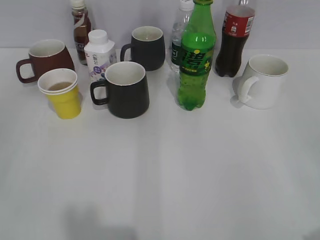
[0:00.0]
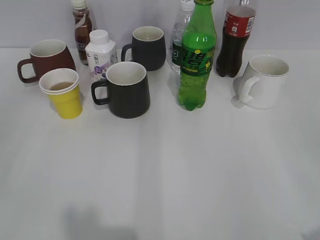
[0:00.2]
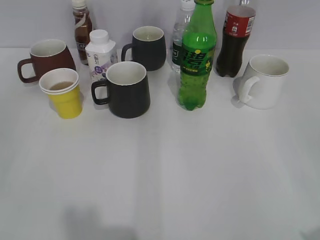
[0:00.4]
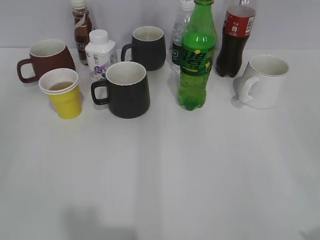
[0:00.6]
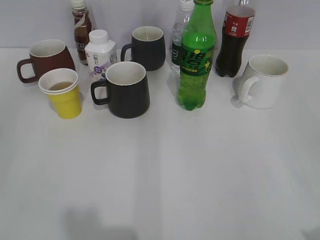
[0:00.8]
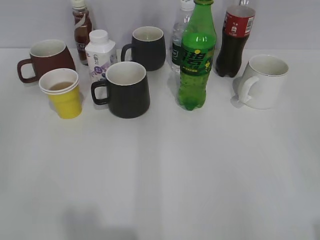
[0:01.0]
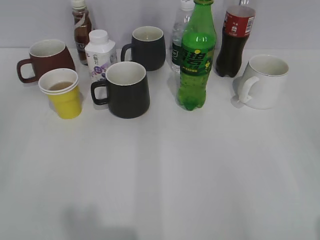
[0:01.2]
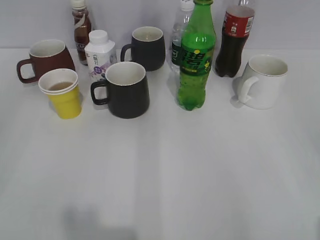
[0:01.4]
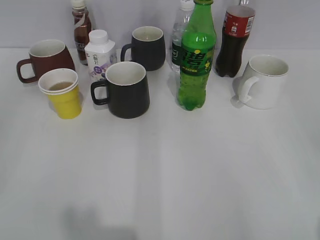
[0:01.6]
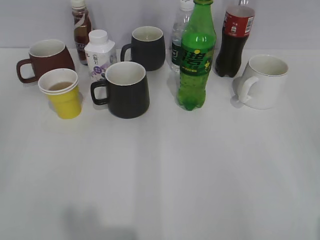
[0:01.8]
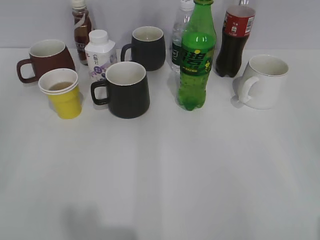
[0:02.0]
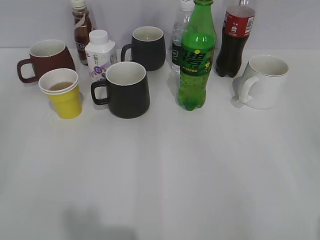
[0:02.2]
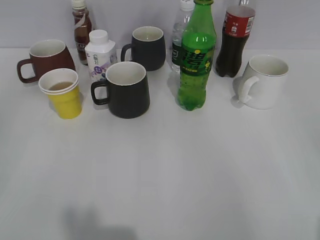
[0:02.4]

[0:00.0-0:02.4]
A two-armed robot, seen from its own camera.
1.2 to 2.4 s: Neither gripper changes place.

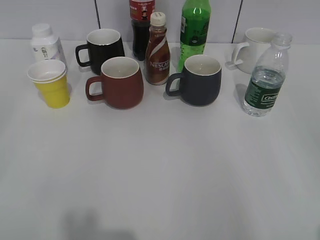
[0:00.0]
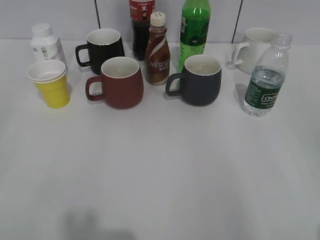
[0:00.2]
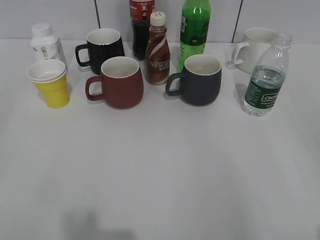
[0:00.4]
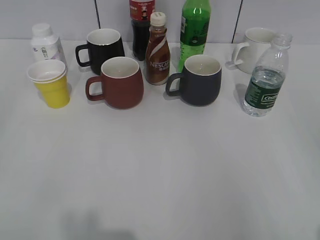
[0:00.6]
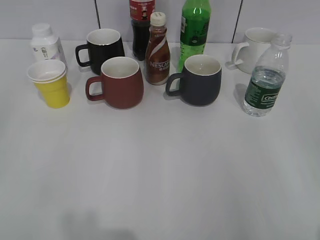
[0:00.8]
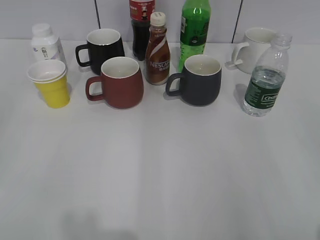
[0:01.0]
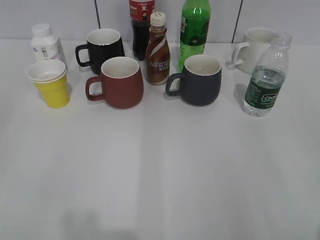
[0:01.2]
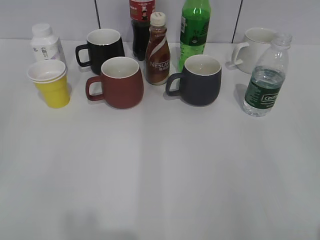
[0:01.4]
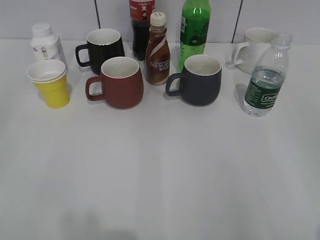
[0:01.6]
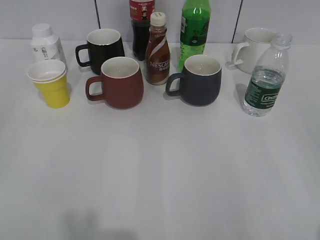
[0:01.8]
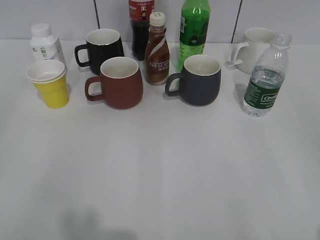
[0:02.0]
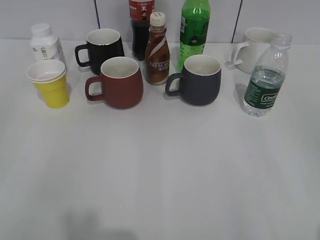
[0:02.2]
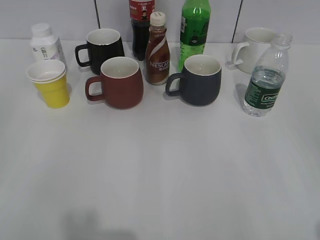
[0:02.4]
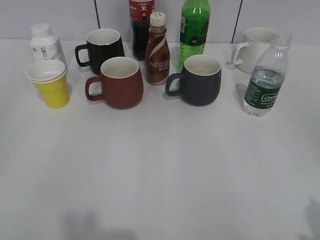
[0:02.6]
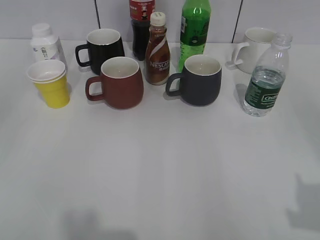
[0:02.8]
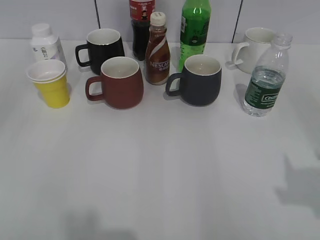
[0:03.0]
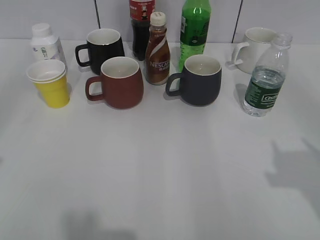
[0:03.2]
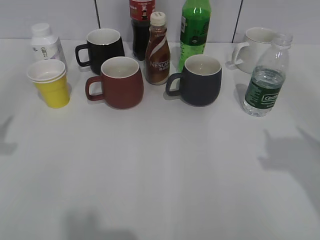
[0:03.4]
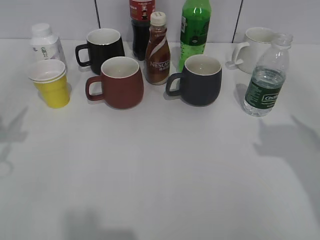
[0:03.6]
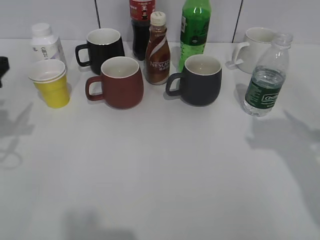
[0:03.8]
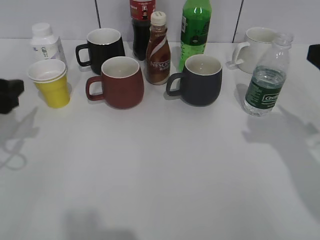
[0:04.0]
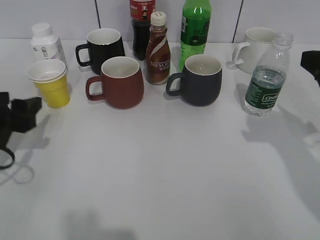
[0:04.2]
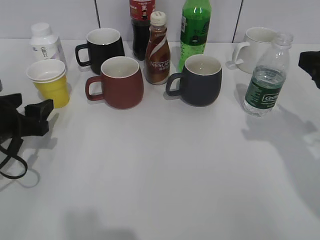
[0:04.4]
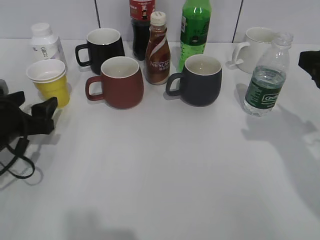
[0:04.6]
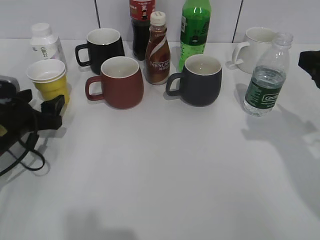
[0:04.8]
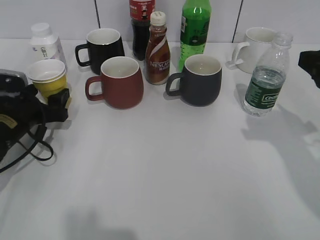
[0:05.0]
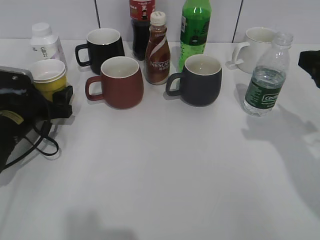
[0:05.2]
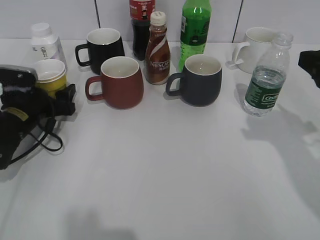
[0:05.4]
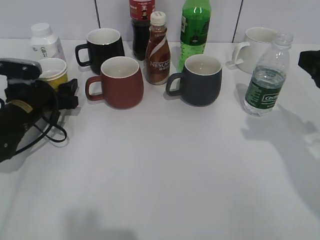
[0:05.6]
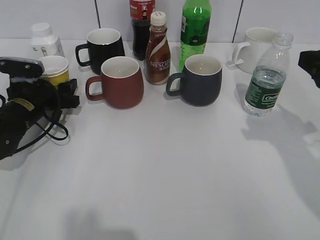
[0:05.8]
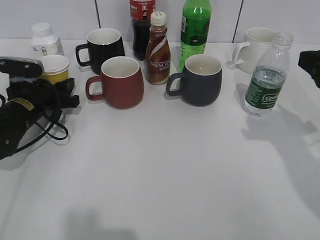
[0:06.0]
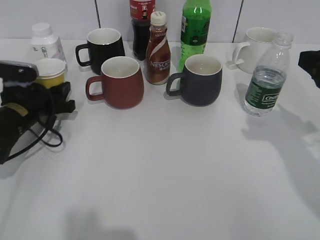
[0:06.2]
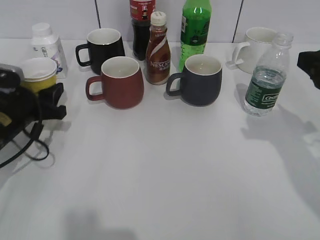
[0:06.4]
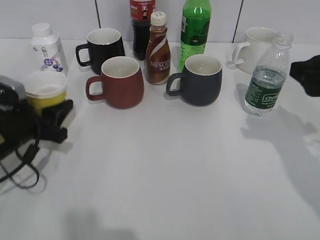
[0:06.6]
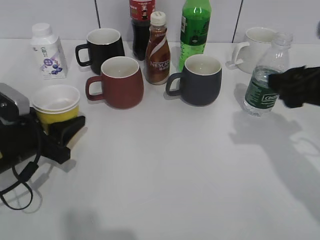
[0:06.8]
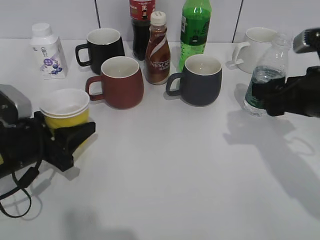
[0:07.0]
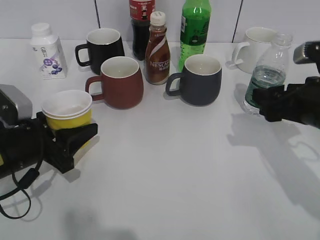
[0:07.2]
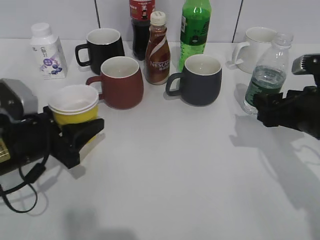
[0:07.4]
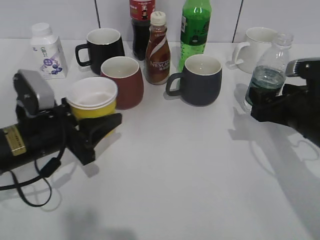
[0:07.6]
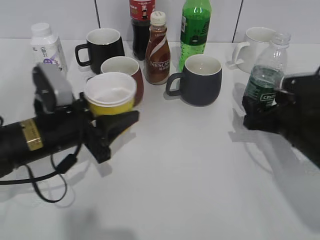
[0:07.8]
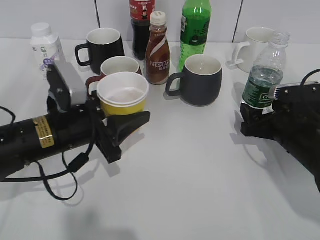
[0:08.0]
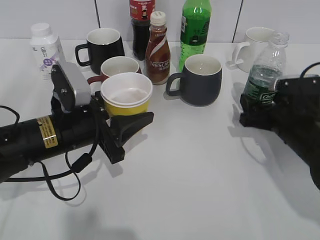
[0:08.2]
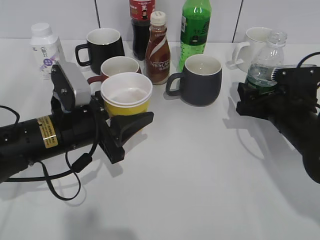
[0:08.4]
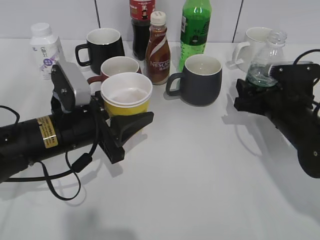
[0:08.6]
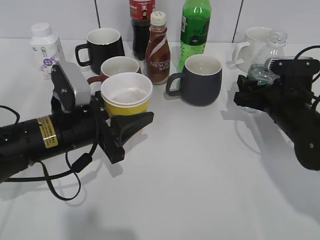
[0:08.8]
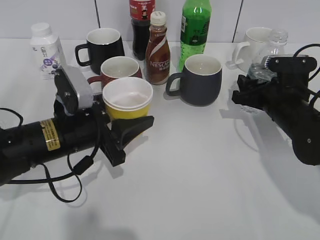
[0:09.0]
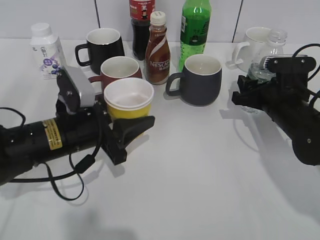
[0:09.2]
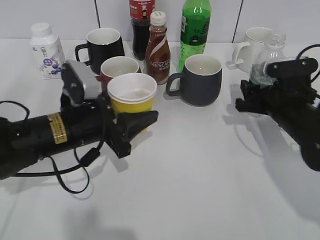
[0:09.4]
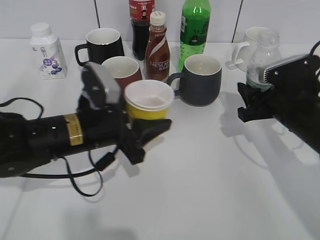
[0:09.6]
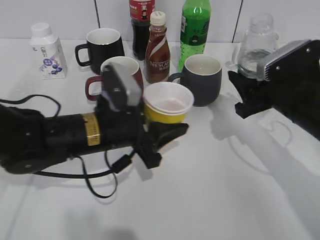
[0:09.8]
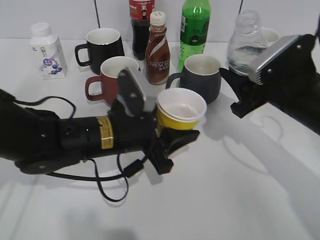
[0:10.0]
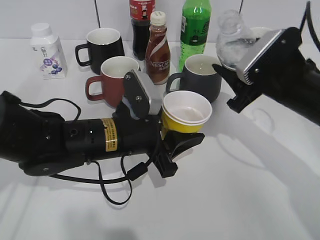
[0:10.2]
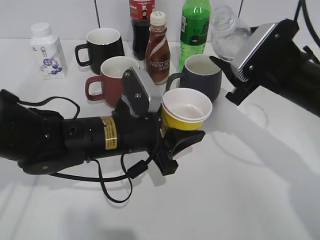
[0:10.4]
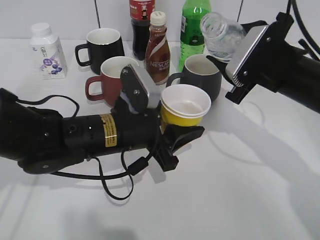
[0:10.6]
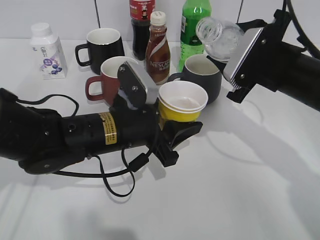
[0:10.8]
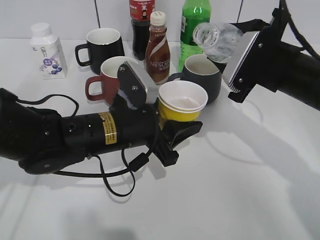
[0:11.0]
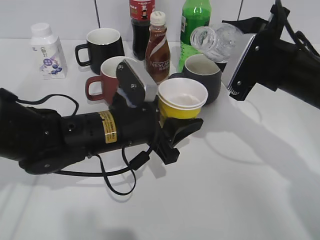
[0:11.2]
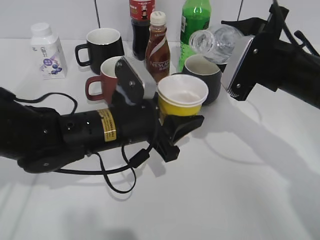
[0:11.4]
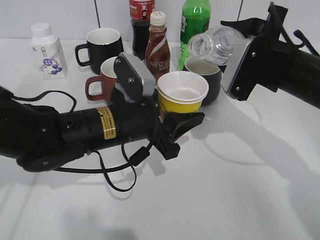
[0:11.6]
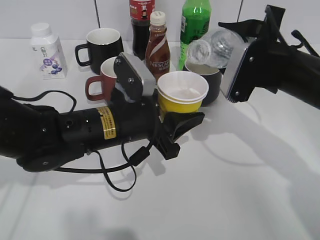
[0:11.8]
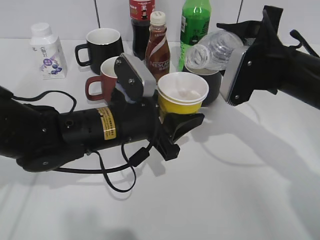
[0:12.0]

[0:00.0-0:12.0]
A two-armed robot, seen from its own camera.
Step, 2.2 to 5.8 s: Grasp the yellow paper cup with left gripper.
Step, 6.2 to 9.0 s: Grasp the bottle with water with right gripper.
1.6 to 3.0 s: The right gripper goes about 5 cm forward, and closes.
3.0 to 4.4 s: The left gripper heads forward and downward, covering some 25 cm, and opens. Meanwhile the right gripper moves forward, some 15 cm, and opens up.
4.4 to 6.0 s: The left gripper shifts approximately 10 cm forward, and closes up.
6.0 to 7.6 s: The left gripper goes some 10 cm backward and to the right; the right gripper is displaced downward by some 10 cm.
7.6 to 9.0 s: The left gripper goes about 5 cm to the right, while the right gripper shifts approximately 5 cm forward, and closes up.
9.0 to 10.4 s: The right gripper travels upward by some 10 cm; the left gripper is displaced to the right by roughly 10 cm.

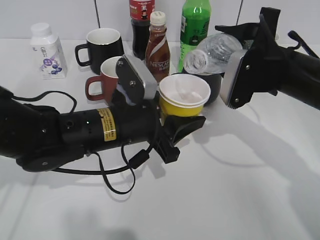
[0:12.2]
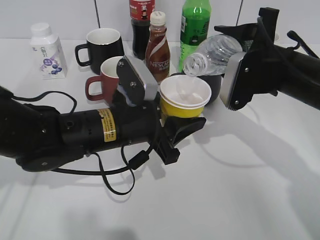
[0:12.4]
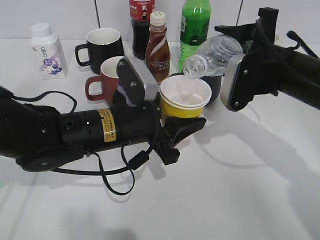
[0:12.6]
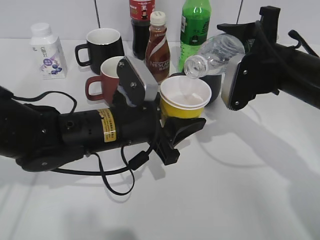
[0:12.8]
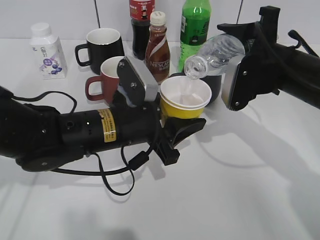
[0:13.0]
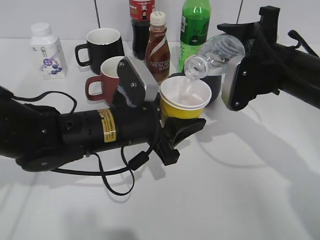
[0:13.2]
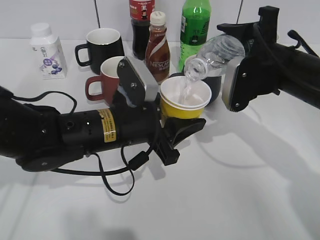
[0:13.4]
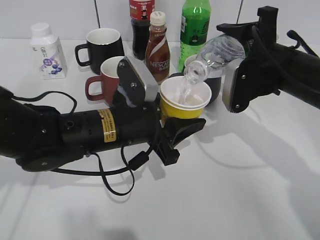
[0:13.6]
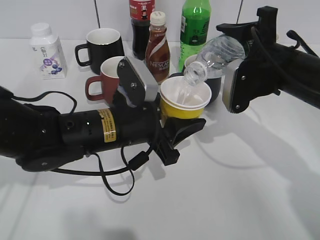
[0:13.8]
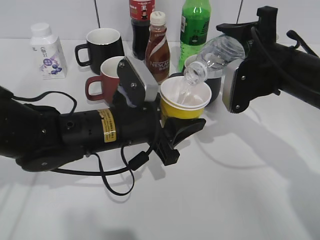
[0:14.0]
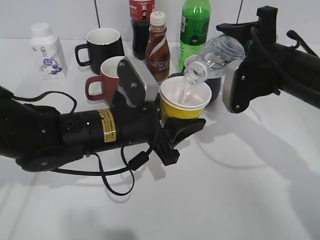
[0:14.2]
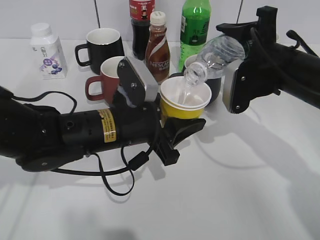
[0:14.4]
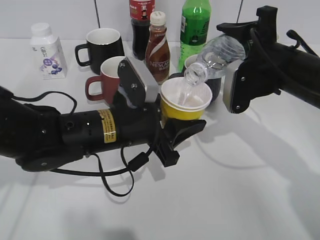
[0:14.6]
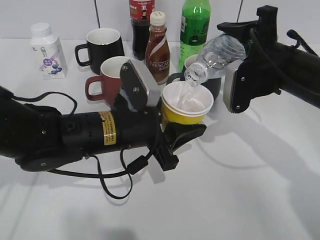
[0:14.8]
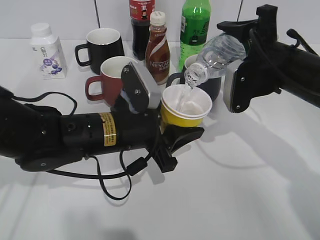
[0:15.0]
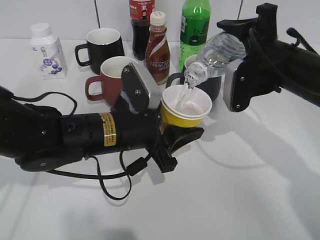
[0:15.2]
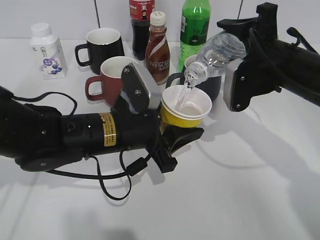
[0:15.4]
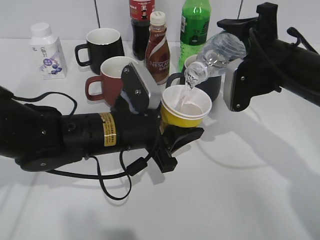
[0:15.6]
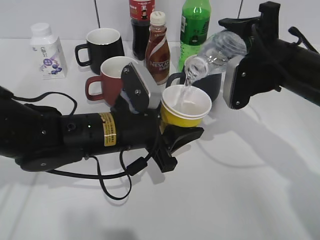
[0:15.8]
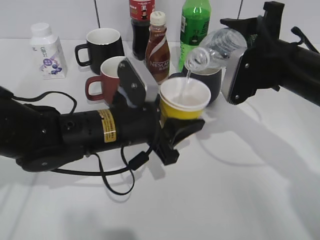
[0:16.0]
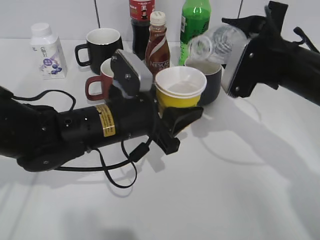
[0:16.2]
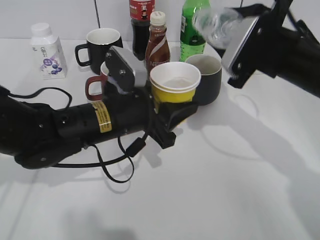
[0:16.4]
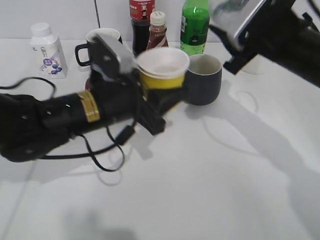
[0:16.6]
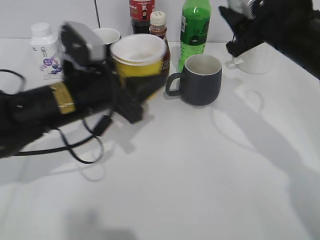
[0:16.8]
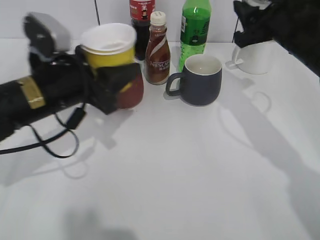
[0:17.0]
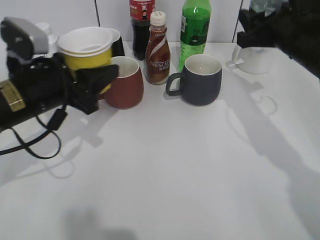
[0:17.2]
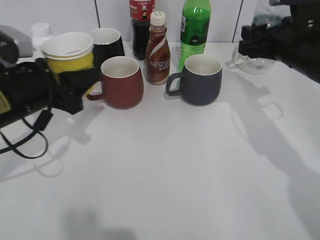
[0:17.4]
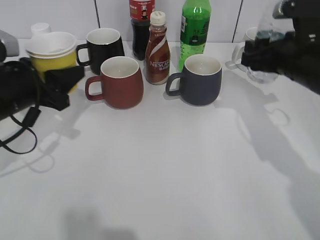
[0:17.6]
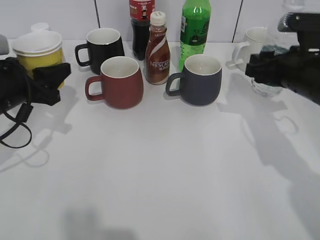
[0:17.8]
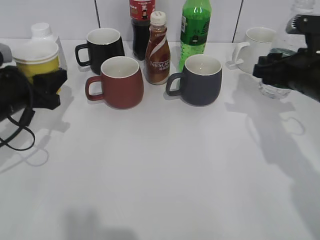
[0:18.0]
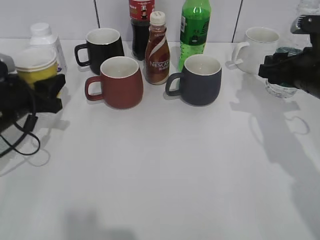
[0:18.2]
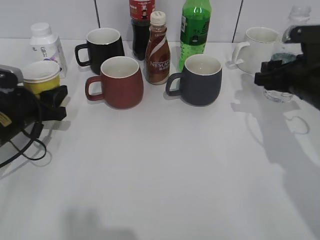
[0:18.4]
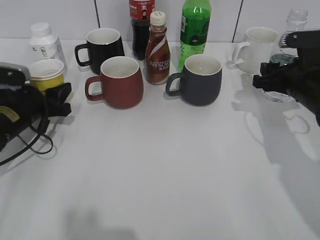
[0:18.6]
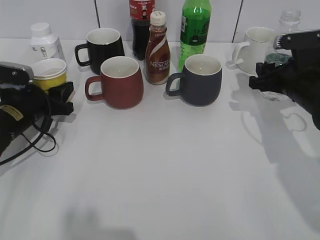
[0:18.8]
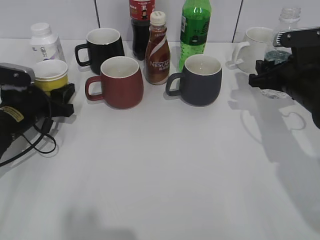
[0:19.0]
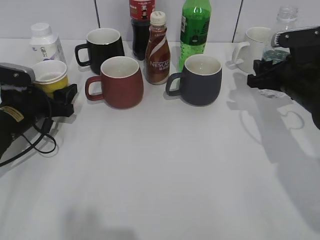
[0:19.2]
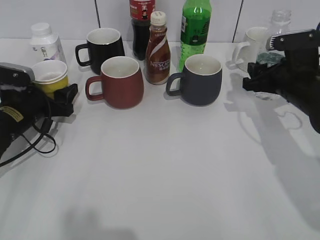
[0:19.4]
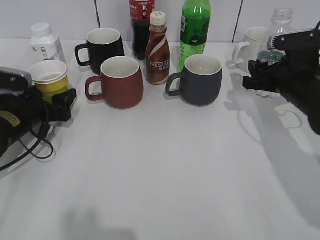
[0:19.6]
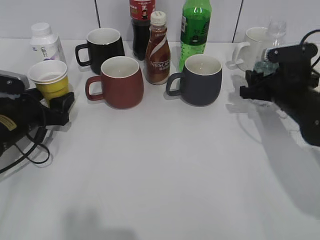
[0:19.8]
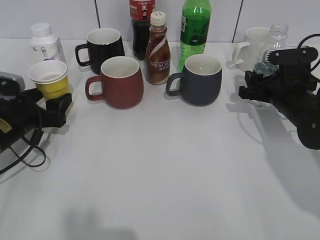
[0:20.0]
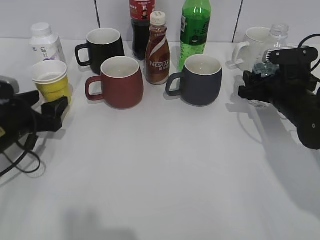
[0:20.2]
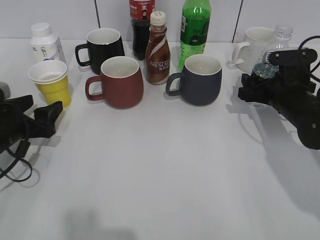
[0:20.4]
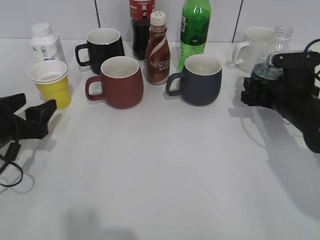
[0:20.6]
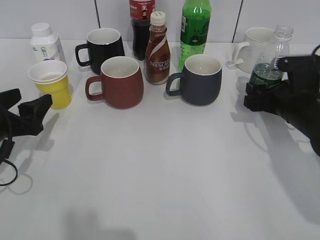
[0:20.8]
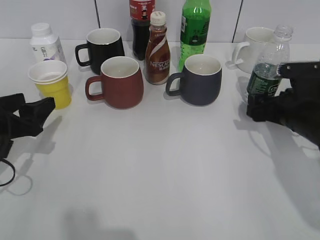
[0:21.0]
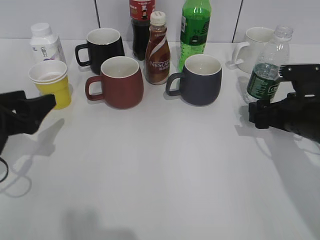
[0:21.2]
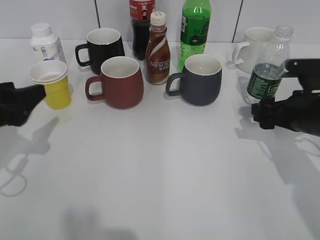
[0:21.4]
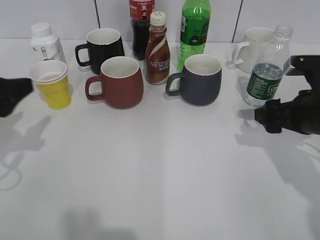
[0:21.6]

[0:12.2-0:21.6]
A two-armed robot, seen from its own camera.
Step, 12.2 to 16.6 s: Pour the water from bottle to cup with right gripper.
Step, 16.8 to 19.8 s: Place the yellow paper cup on the table with left gripper.
Step, 20.2 to 20.6 s: Place the water bottle on the table with right gripper.
12.2 to 13.8 s: The grippers stay close to where they were, moving slightly.
13.8 to 15.4 s: Both grippers stay put.
15.4 to 17.0 s: The left gripper shifts roughly 10 cm to the left and upward.
17.0 to 18.4 s: The right gripper is displaced downward by about 5 cm. Meanwhile the left gripper shifts approximately 15 cm to the left and downward.
18.4 to 20.0 s: The left gripper opens its fingers, while the right gripper heads downward, covering roughly 5 cm.
20.0 to 21.6 s: The right gripper moves backward, about 10 cm, and opens up; the left gripper moves upward and backward, about 15 cm.
